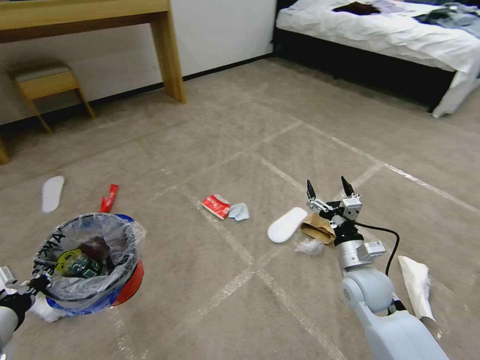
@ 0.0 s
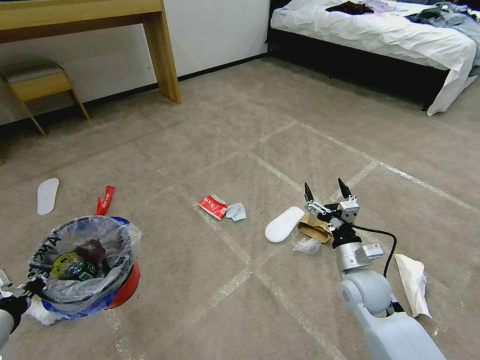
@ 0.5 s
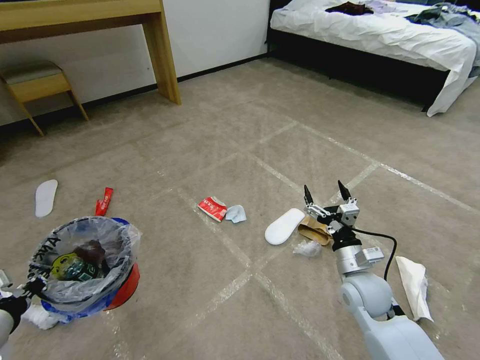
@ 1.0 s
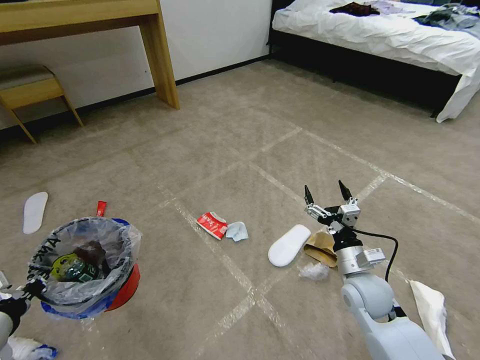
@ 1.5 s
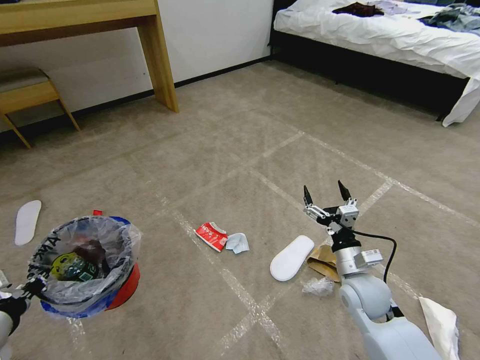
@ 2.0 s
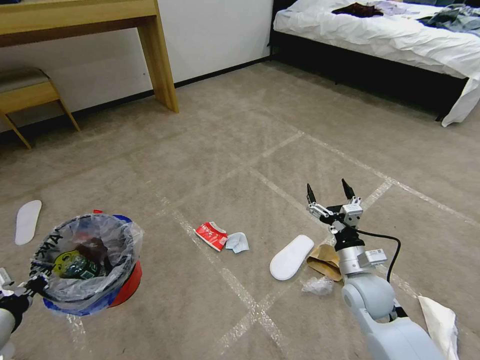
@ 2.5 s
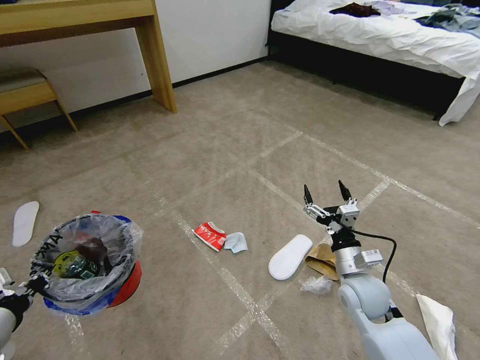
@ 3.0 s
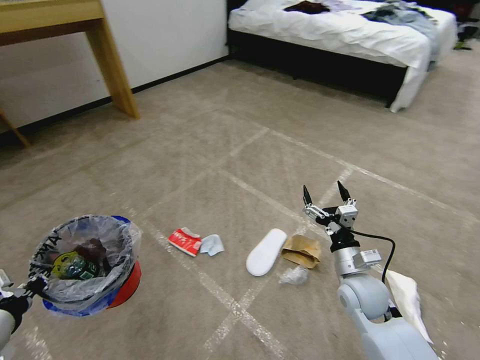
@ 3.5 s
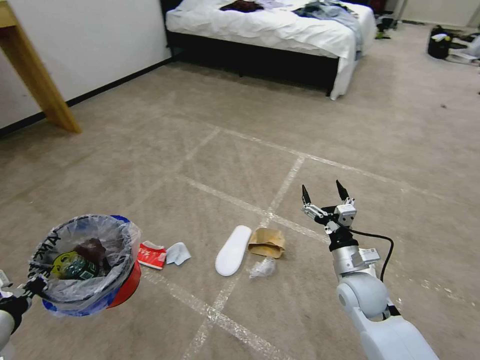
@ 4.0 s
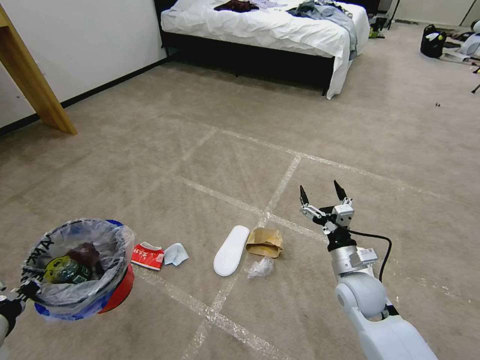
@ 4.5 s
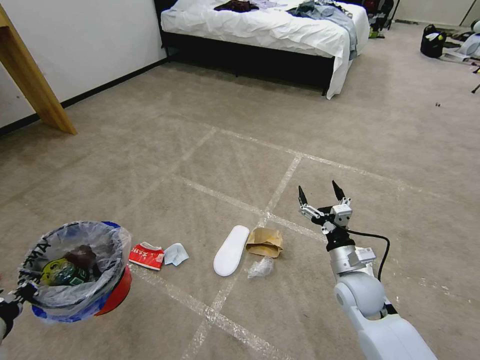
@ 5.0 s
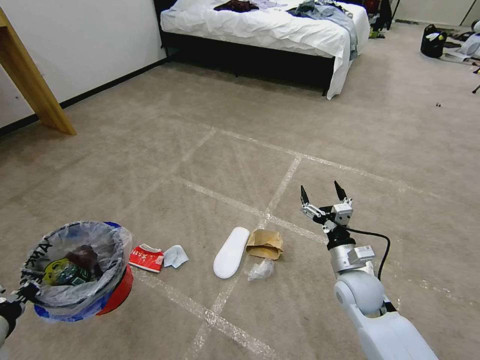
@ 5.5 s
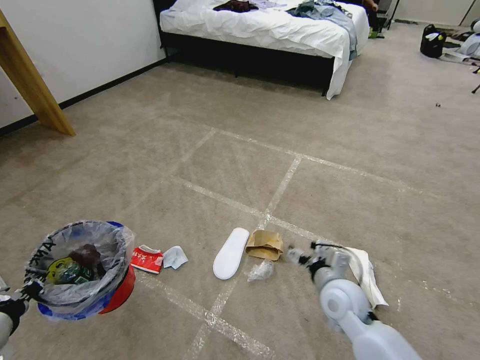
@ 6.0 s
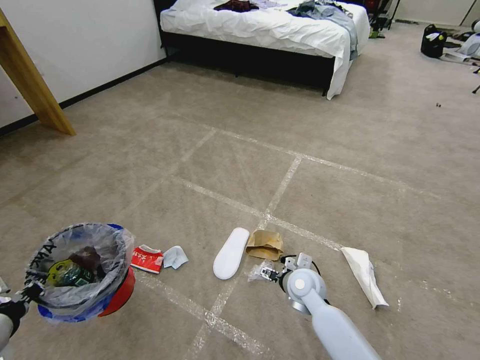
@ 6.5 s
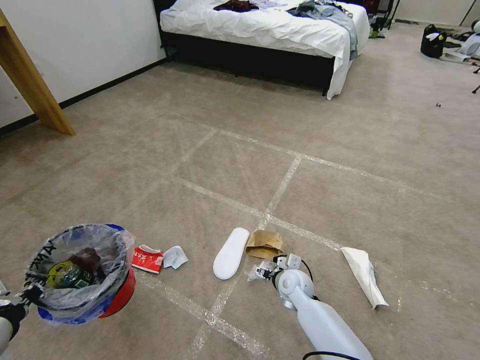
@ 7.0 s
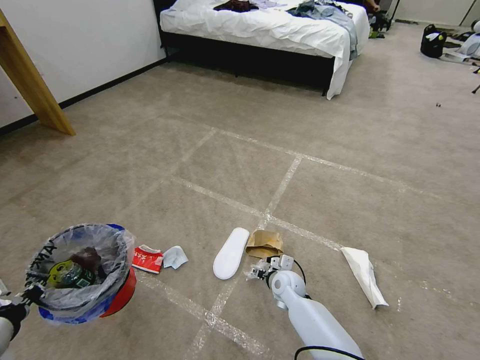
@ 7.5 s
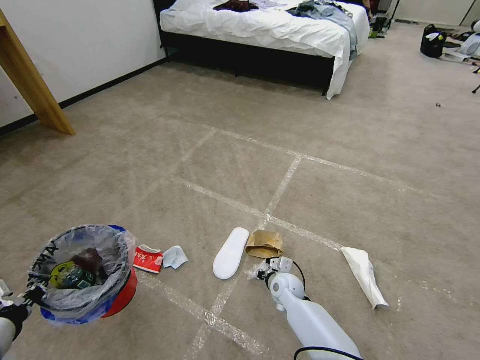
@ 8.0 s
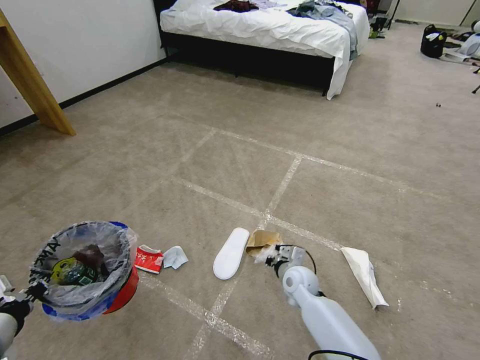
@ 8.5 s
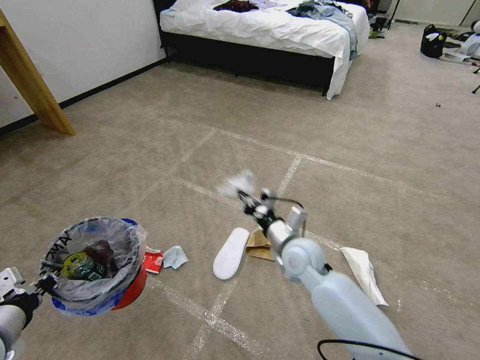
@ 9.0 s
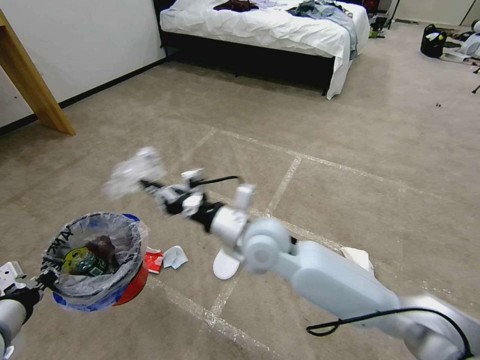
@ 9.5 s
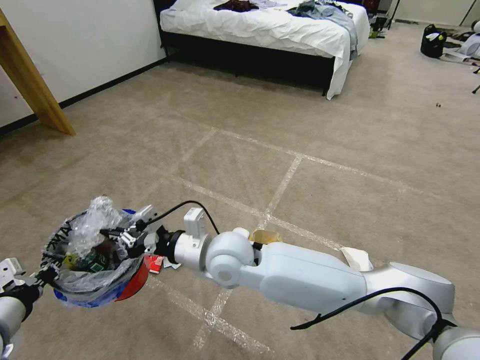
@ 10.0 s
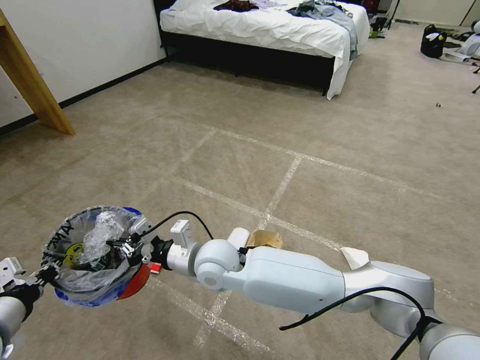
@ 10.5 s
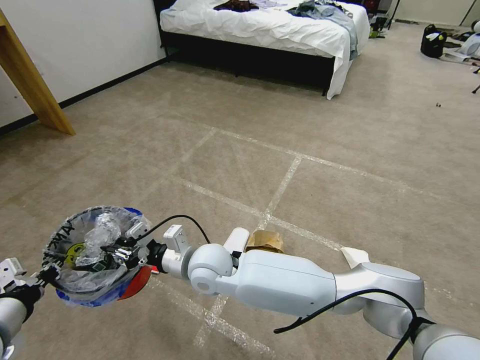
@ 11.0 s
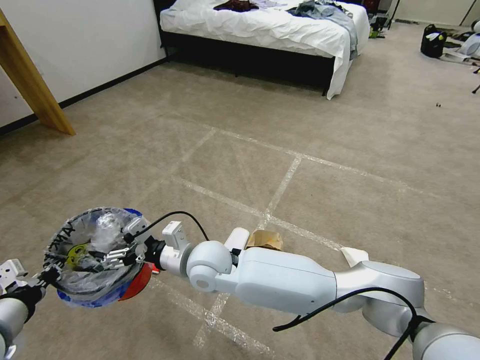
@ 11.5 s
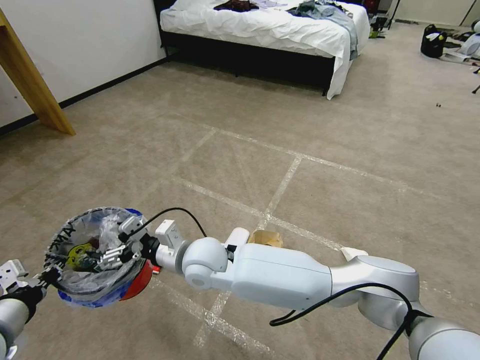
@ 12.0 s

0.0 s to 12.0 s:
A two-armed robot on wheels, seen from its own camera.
Task of the whole recording: Pick up the trash bin and place the garbage on the floor into it.
6.0 to 8.0 s: The right gripper is displaced downward, forward and to the left by roughly 20 cm, and closes up.
8.0 to 10.0 s: The right gripper heads upward and to the left, covering about 35 cm.
10.0 to 12.0 s: The right gripper moves to the left, approximately 5 cm, and opens up.

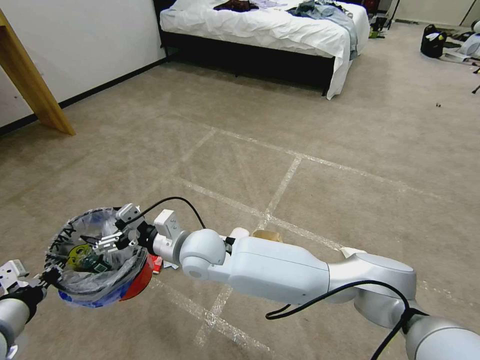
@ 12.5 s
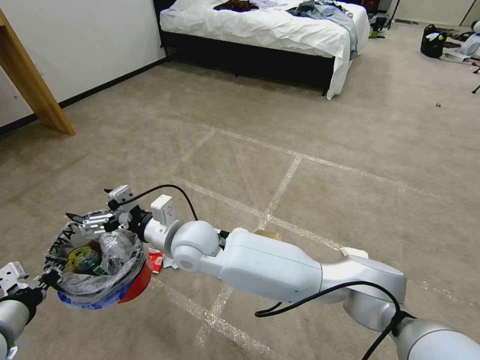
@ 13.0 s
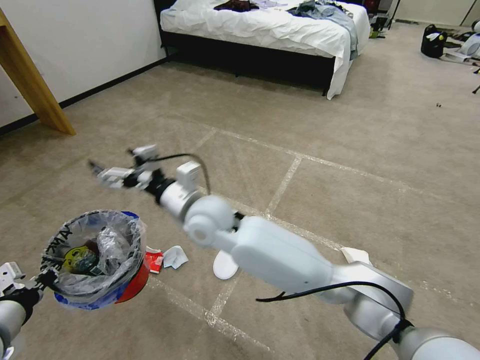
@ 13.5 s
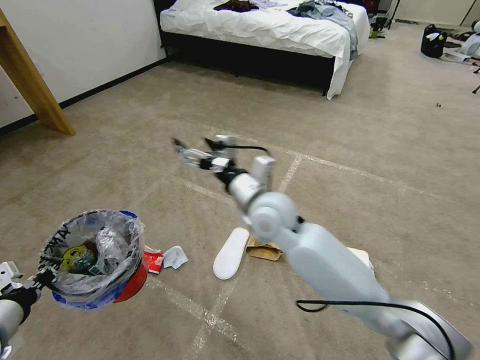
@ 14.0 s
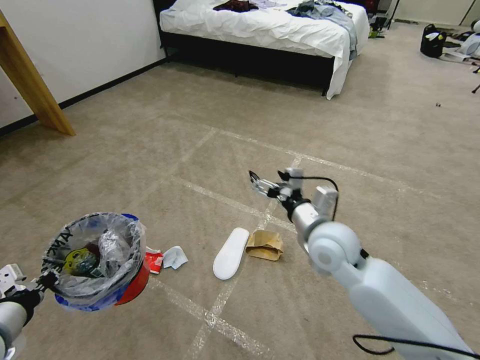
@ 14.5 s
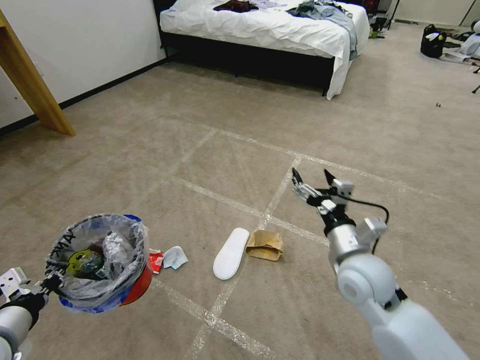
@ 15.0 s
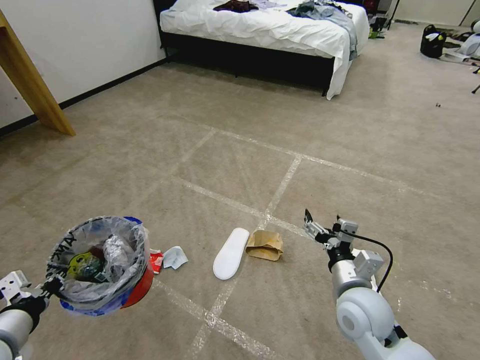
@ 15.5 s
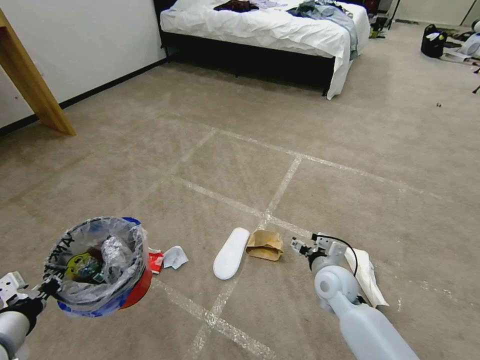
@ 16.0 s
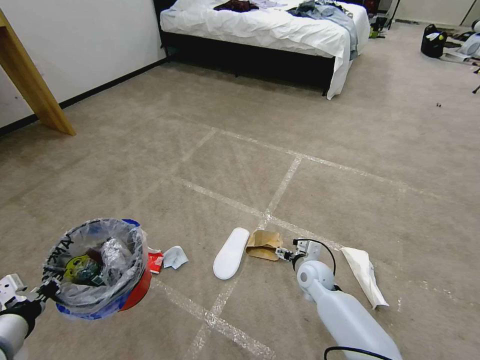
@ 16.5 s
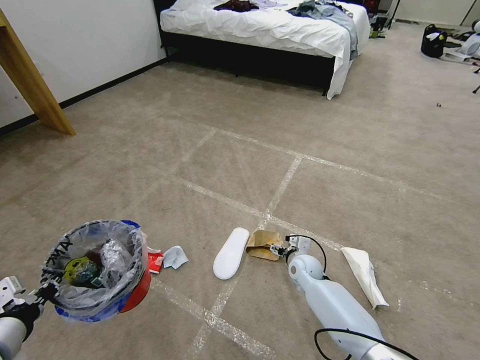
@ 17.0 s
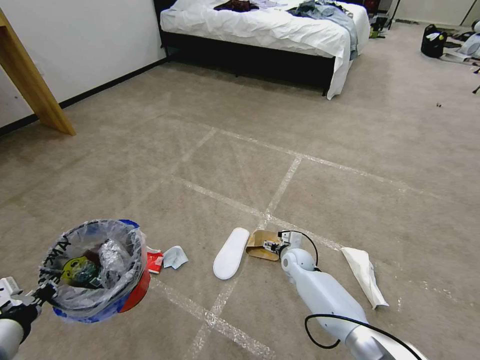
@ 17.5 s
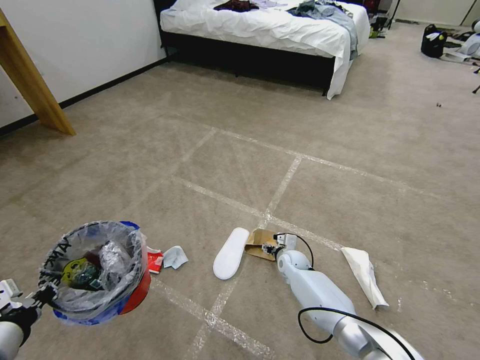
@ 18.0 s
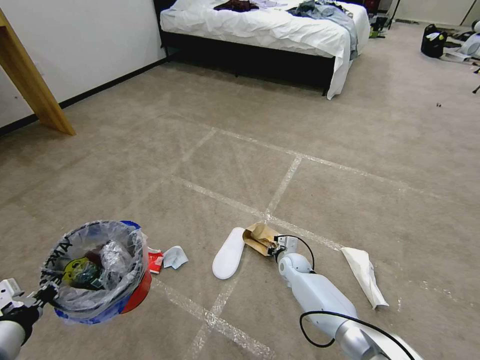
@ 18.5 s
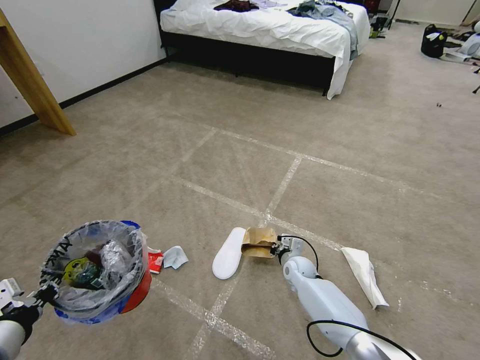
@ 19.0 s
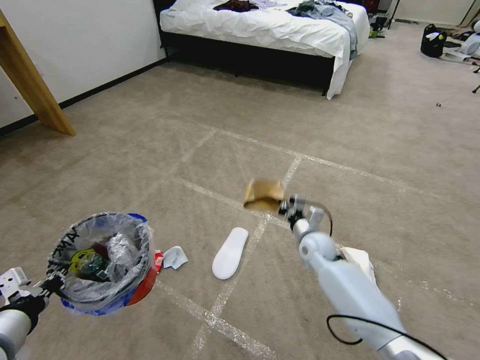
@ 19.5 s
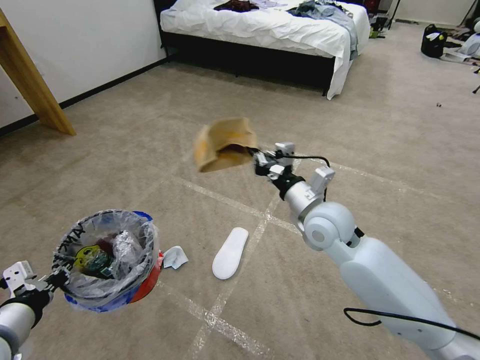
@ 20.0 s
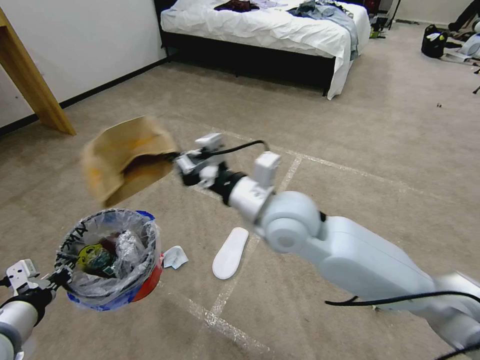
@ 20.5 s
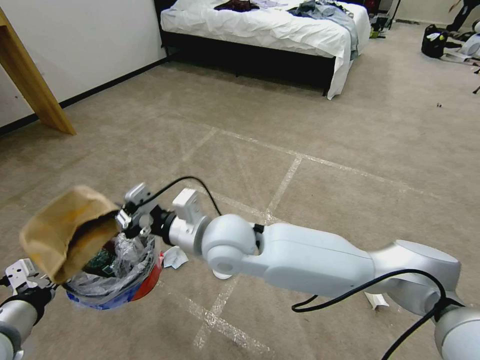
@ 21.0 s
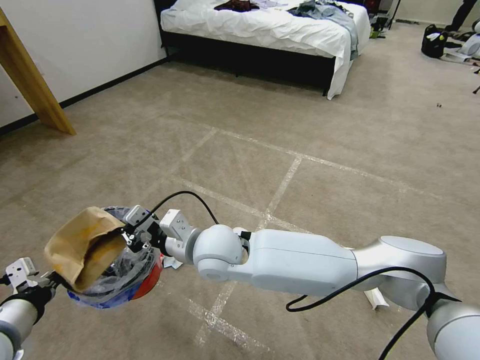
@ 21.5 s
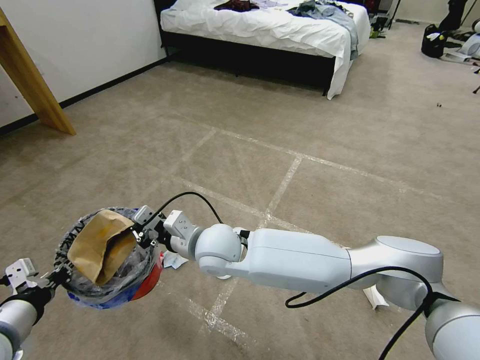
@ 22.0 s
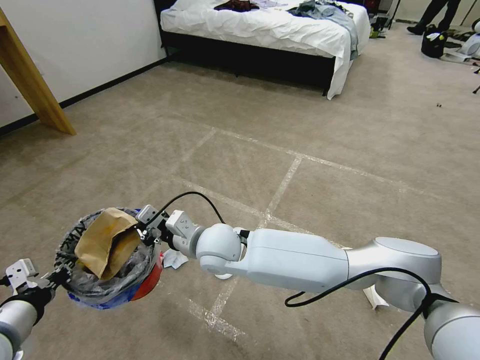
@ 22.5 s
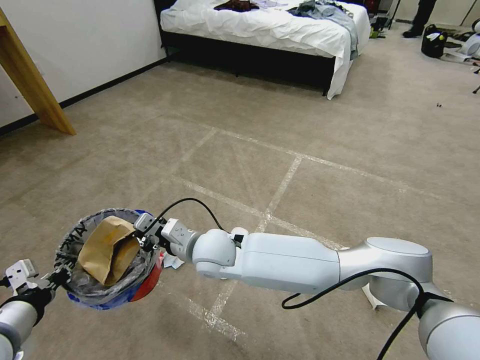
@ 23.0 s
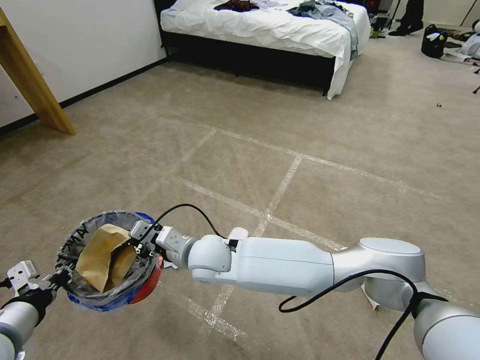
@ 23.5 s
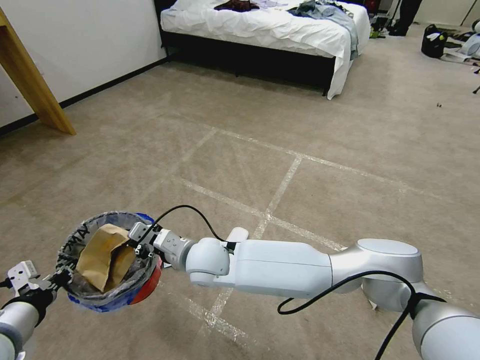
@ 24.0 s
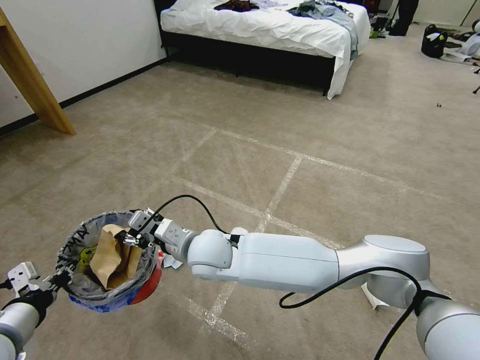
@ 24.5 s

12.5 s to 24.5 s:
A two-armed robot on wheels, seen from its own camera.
Task of the whole recording: Pick up the trash bin and place the garbage on the floor into it.
12.5 to 14.5 s: The right gripper moves to the right, approximately 25 cm.
14.5 to 16.5 s: The right gripper goes approximately 20 cm downward.
16.5 to 18.5 s: The right gripper shifts about 10 cm downward and forward, and closes up.
18.5 to 20.5 s: The right gripper heads upward, covering approximately 40 cm.
20.5 to 22.5 s: The right gripper shifts some 15 cm downward and to the left.
22.5 to 24.5 s: The right gripper opens up.

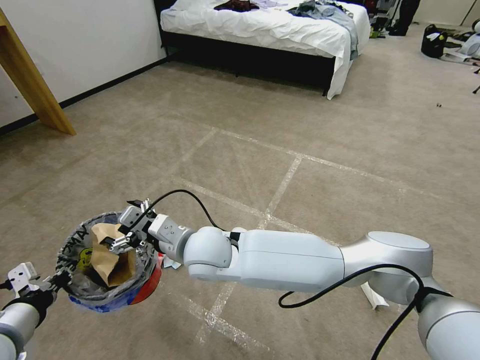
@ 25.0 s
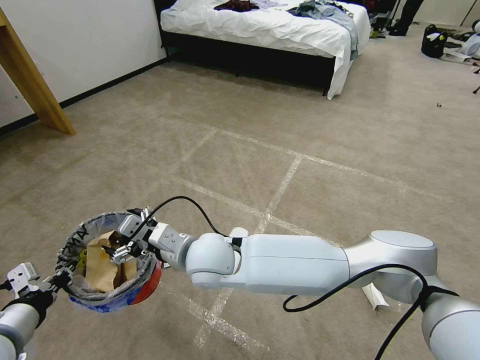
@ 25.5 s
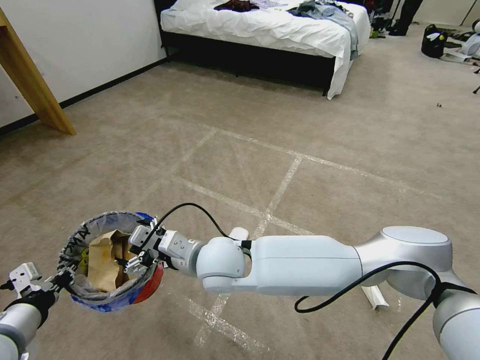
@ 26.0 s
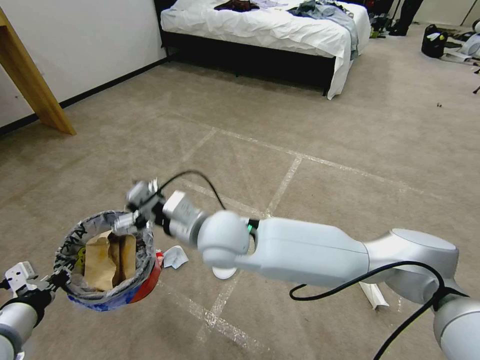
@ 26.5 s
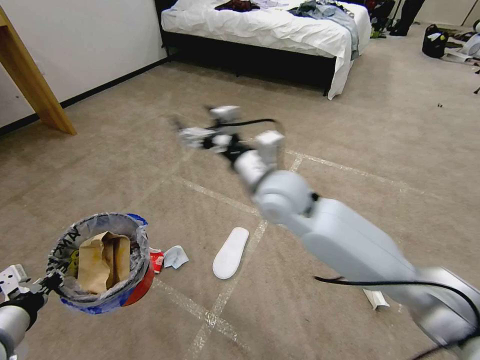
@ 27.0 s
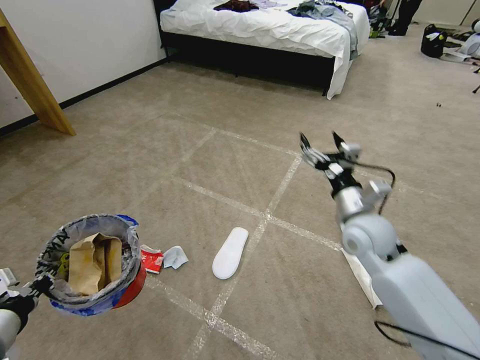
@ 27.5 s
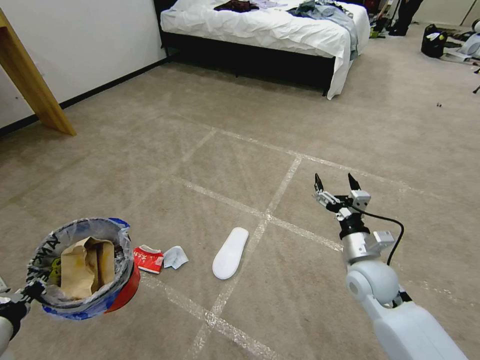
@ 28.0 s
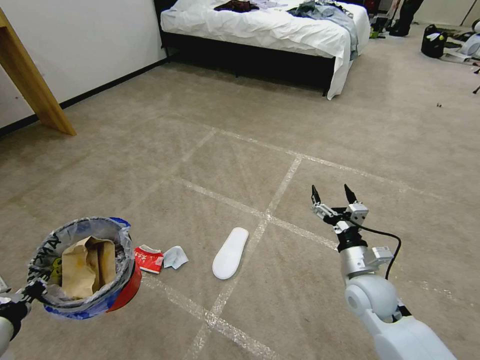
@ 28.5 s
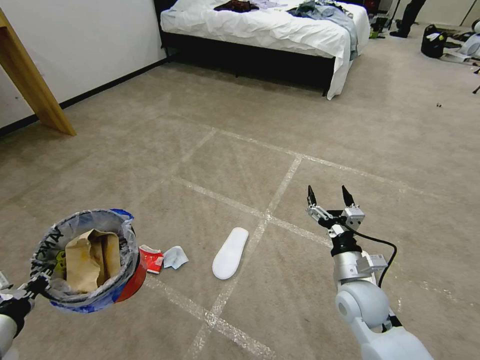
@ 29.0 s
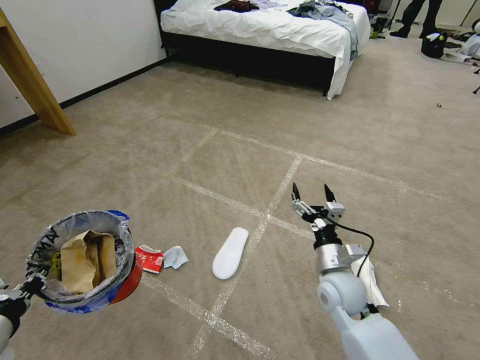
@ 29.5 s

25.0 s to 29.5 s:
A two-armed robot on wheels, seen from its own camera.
Task of the whole recording: Pick up the trash bin and place the garbage on the floor into it.
25.0 to 27.0 s: The right gripper goes roughly 20 cm to the right, upward and forward.
27.0 to 29.5 s: The right gripper goes approximately 25 cm downward, to the right and backward.
